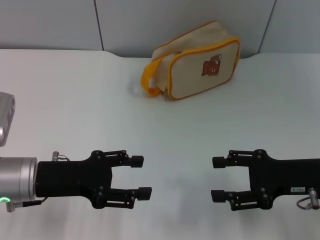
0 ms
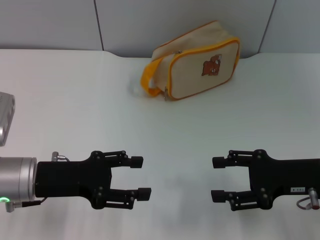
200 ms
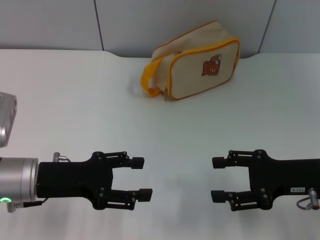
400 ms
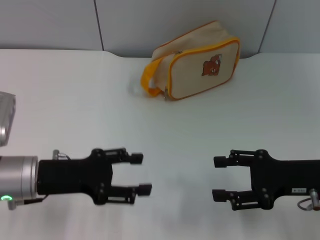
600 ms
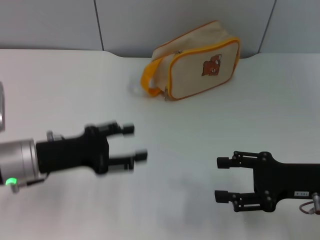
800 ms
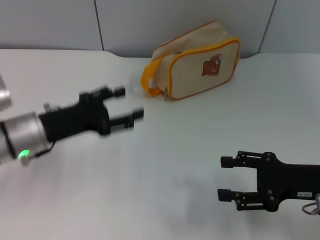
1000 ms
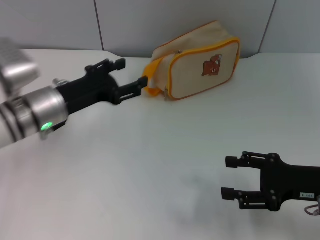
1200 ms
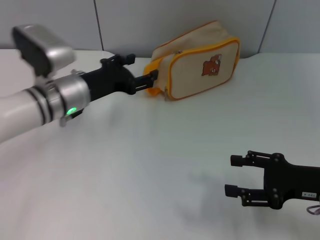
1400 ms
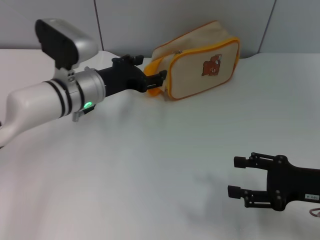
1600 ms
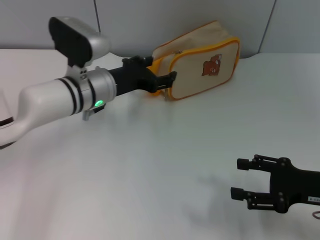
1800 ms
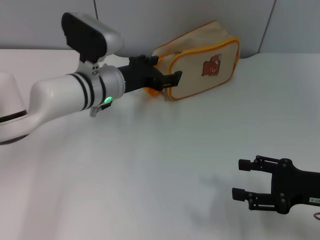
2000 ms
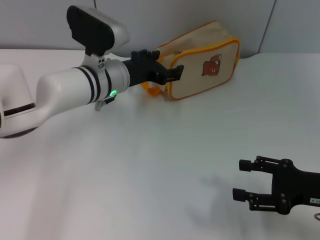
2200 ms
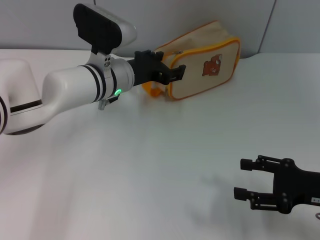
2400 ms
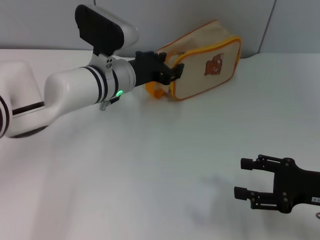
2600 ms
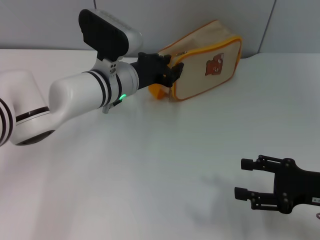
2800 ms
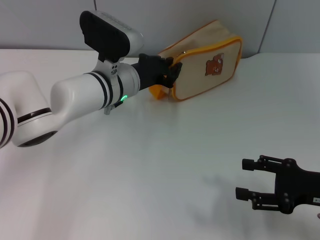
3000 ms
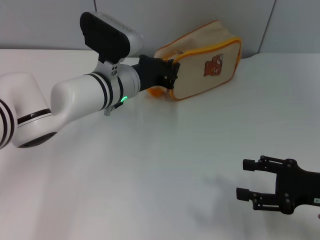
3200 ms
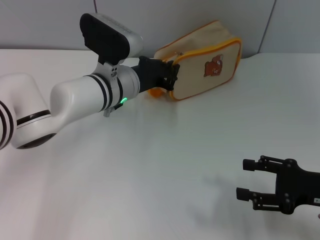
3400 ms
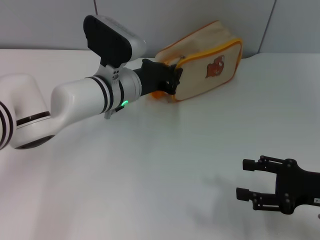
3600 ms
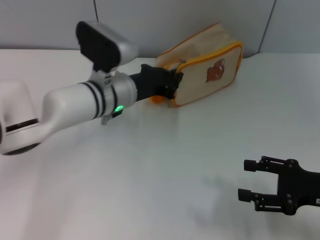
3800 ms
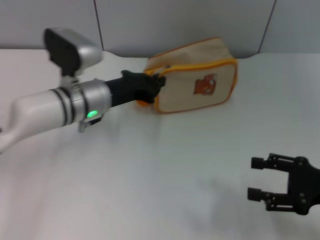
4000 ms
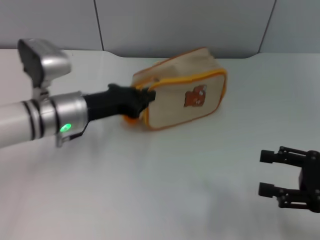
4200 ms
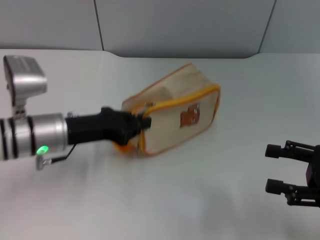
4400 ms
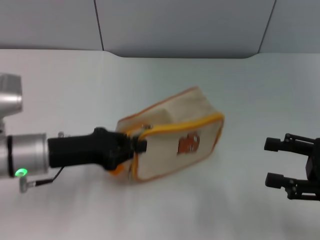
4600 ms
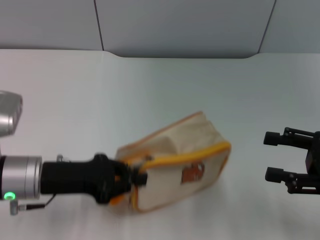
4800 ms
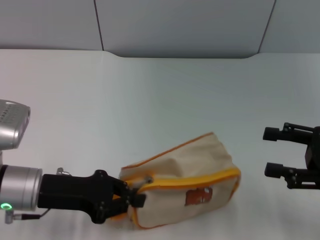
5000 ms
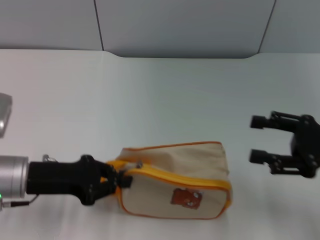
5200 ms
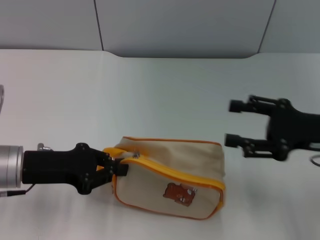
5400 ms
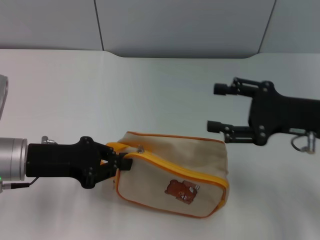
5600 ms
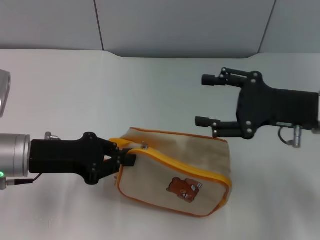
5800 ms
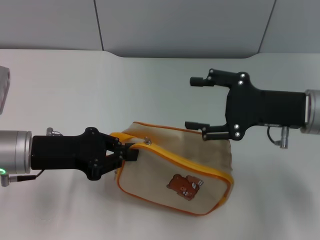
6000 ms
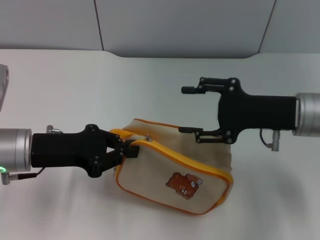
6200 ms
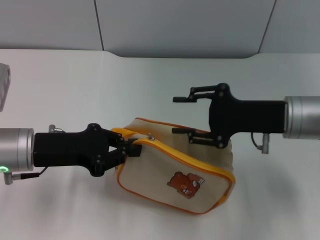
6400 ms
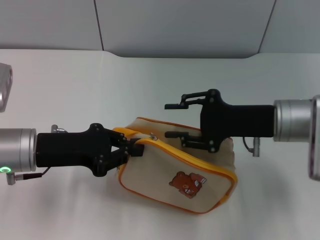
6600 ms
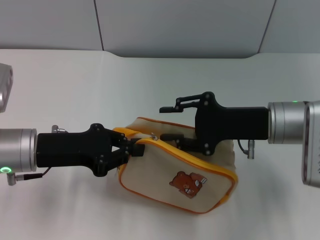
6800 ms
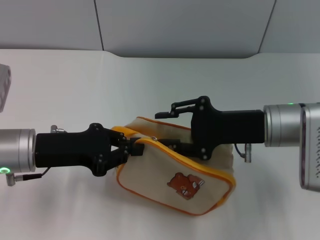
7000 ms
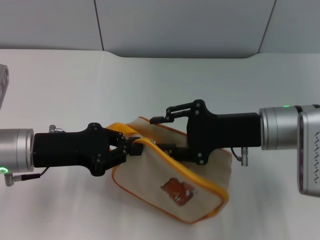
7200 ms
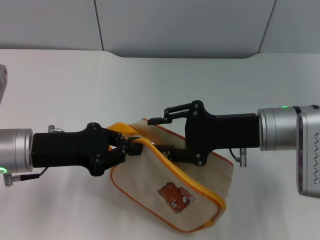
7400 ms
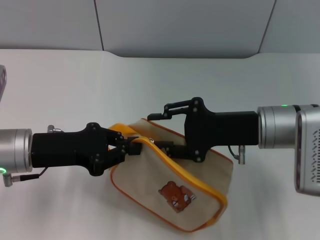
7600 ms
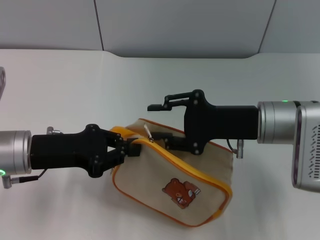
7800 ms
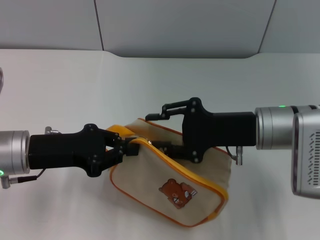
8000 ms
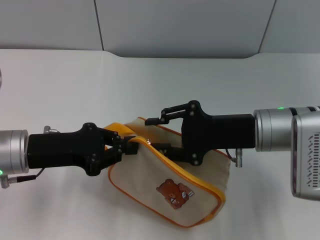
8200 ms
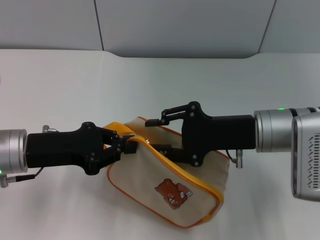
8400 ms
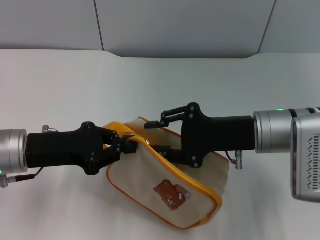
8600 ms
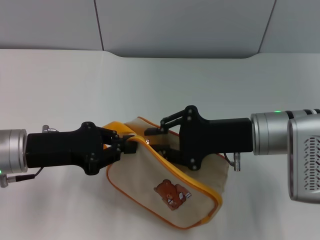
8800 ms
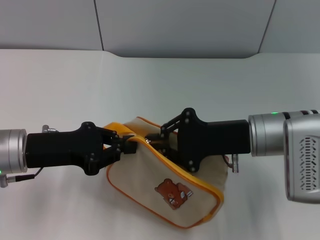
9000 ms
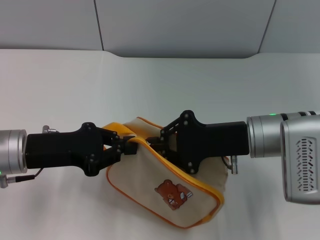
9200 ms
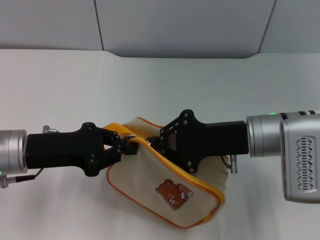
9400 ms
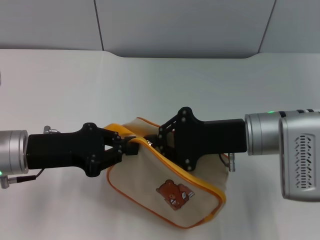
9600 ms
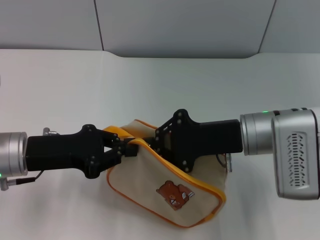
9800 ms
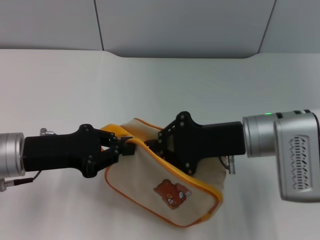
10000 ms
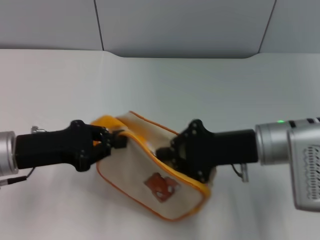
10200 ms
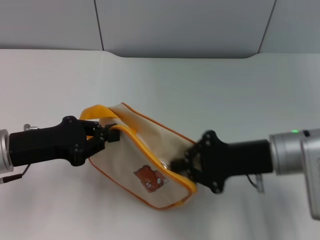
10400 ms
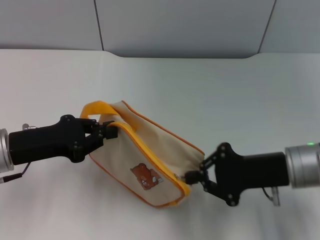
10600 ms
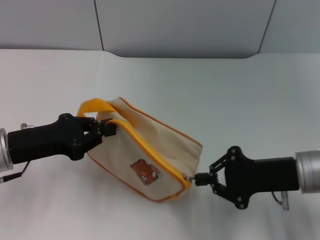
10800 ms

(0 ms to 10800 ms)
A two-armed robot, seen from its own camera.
Step, 0 ms - 6000 ms: Pick up the bag with left gripper.
0 ms - 1600 ms: The left gripper heads forward and to the right, covering some 15 cm.
1600 ms - 3000 ms: The left gripper goes about 5 cm to the right, and closes.
3000 ms - 4600 ms: The right gripper shifts by approximately 5 cm. Meanwhile the left gripper shifts approximately 20 cm to the left and backward.
4600 ms - 6200 ms: The right gripper heads to the left and forward, covering approximately 15 cm.
6200 ms - 9200 ms: The grippers move only a little.
9200 ms - 10800 ms: The right gripper heads to the right, covering some 5 cm.

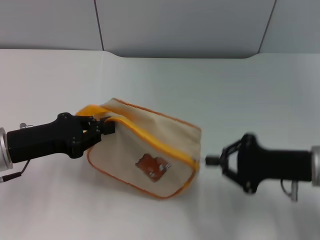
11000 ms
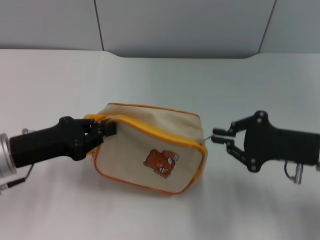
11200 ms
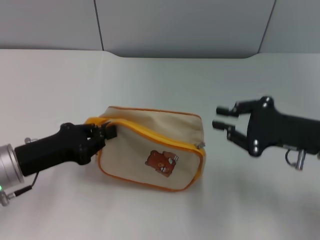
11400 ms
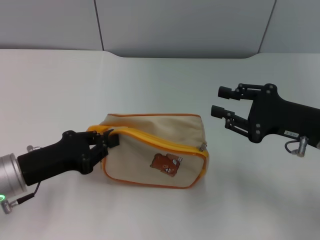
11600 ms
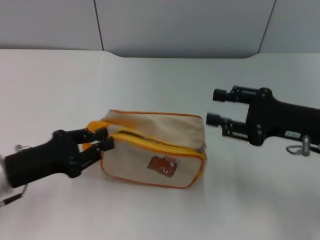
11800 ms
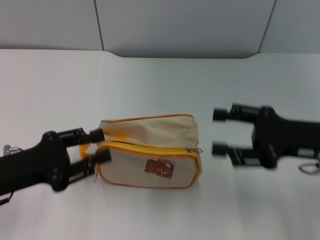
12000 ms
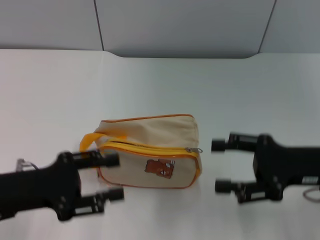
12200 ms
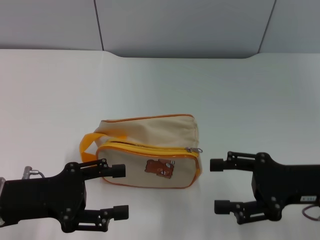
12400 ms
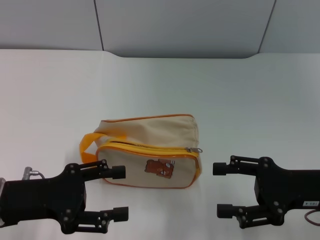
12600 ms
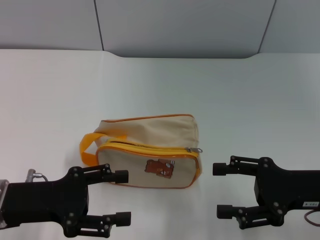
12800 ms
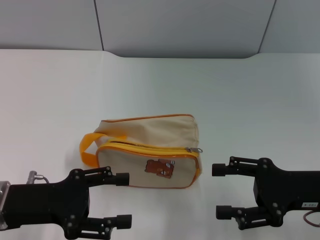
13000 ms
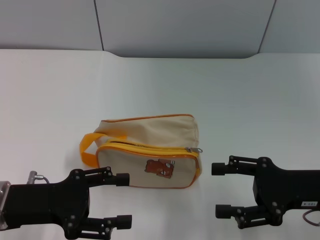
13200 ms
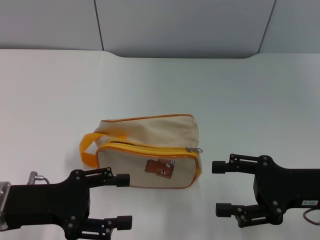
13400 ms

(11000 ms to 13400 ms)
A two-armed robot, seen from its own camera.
Step, 11400 ms - 12000 ms: Place the bag on the table with left gripper.
11000 ms - 12200 ms: The left gripper heads backward, covering some 5 cm, and opens up. Meanwhile the right gripper opens its fingers.
12200 ms - 13400 ms: The left gripper opens up.

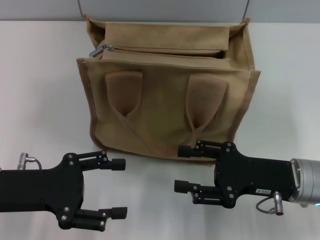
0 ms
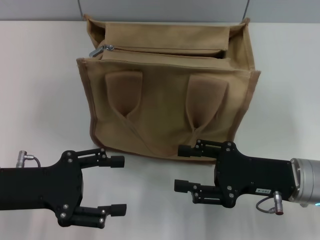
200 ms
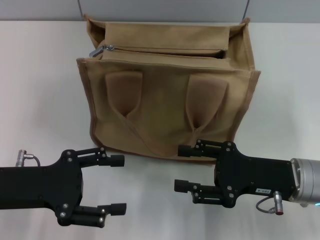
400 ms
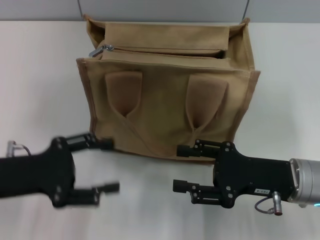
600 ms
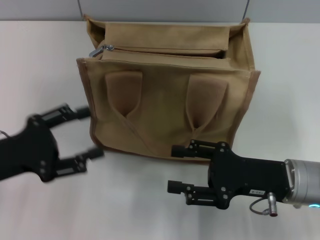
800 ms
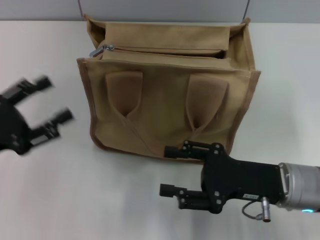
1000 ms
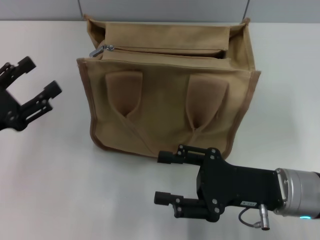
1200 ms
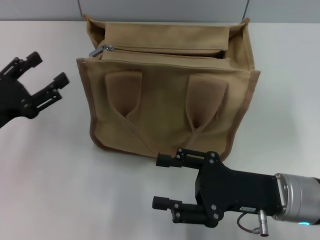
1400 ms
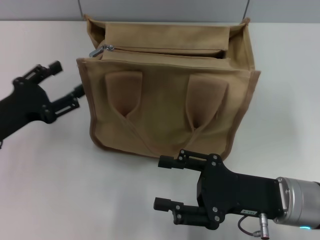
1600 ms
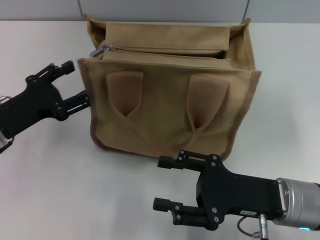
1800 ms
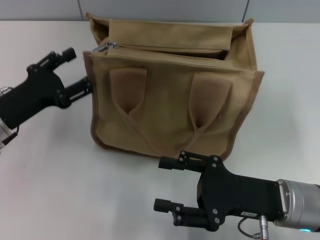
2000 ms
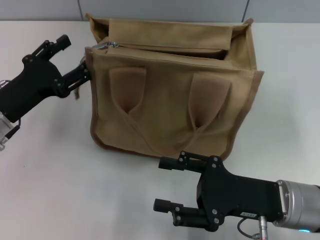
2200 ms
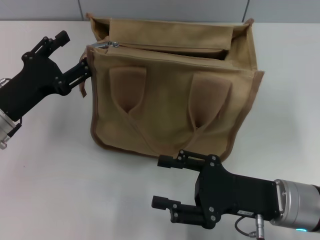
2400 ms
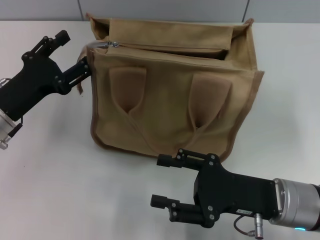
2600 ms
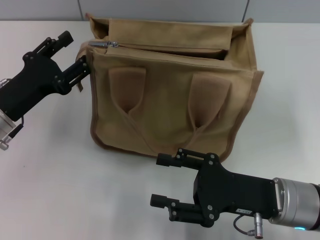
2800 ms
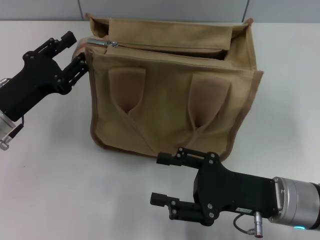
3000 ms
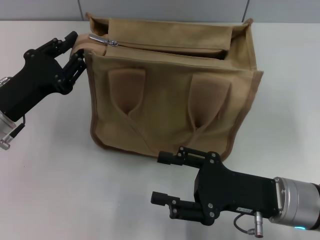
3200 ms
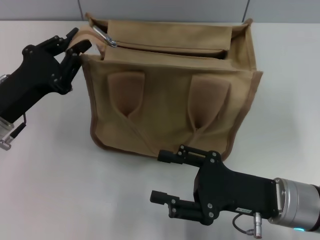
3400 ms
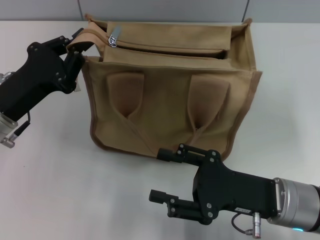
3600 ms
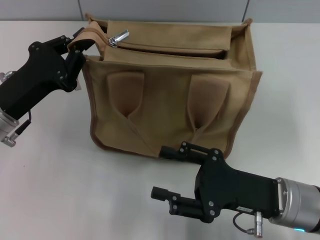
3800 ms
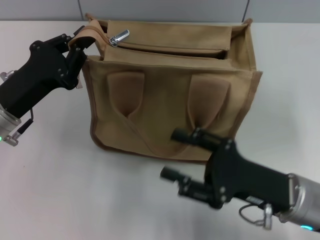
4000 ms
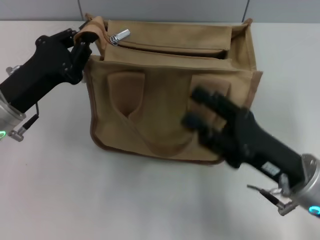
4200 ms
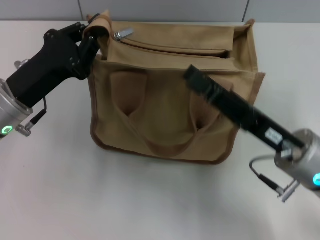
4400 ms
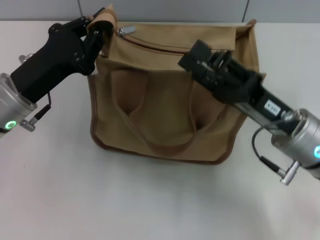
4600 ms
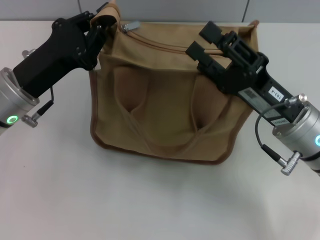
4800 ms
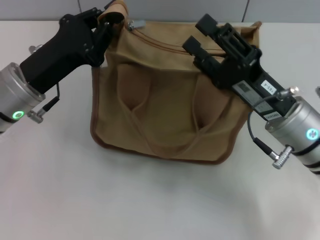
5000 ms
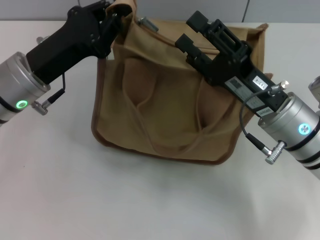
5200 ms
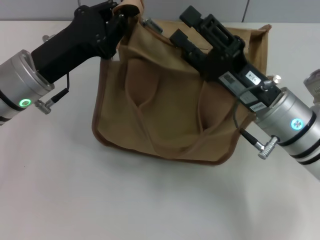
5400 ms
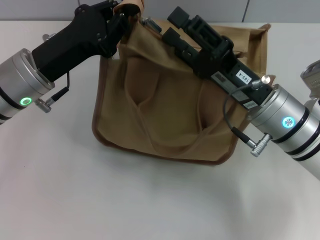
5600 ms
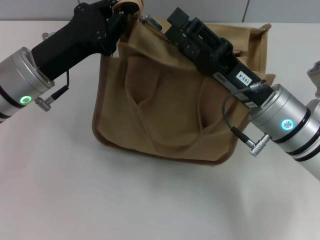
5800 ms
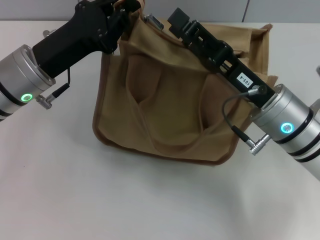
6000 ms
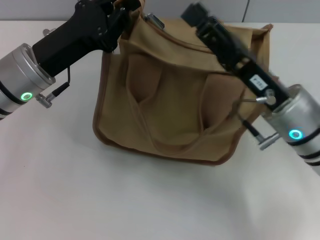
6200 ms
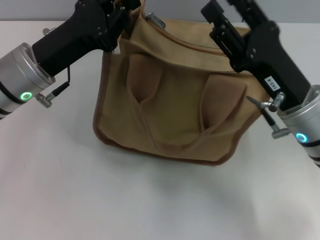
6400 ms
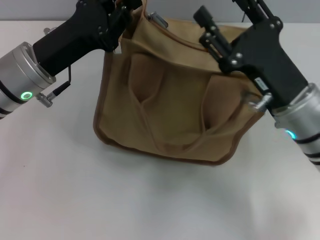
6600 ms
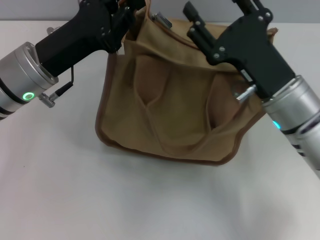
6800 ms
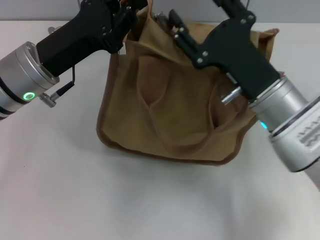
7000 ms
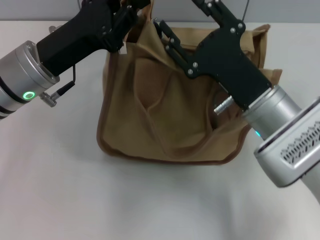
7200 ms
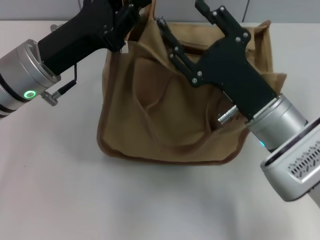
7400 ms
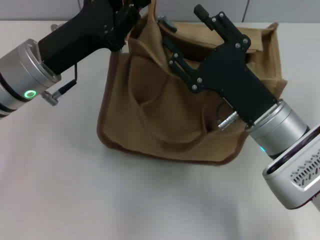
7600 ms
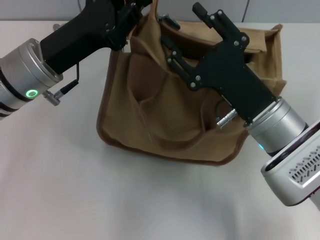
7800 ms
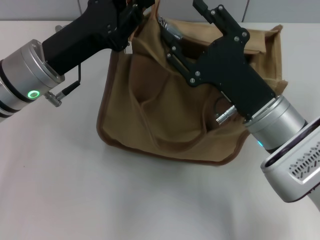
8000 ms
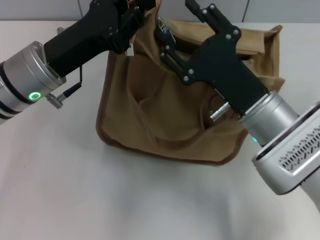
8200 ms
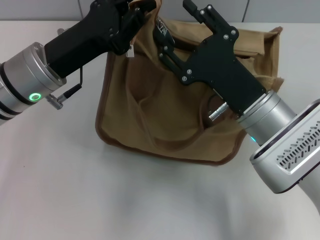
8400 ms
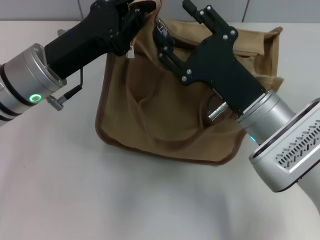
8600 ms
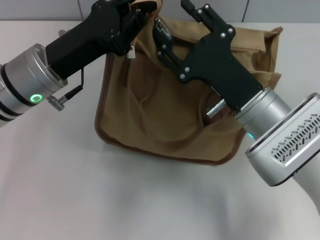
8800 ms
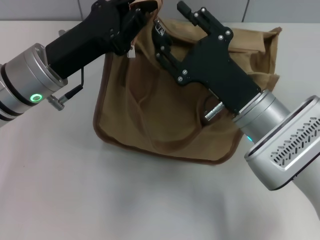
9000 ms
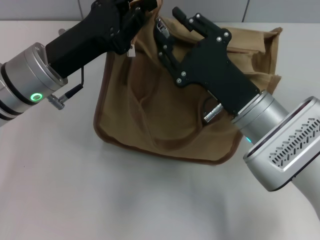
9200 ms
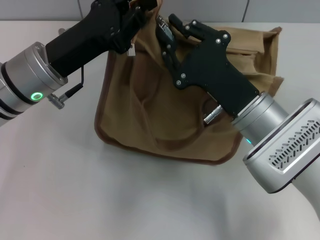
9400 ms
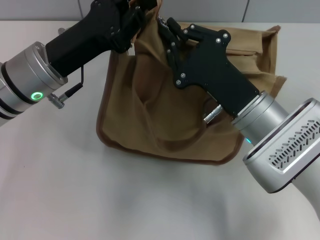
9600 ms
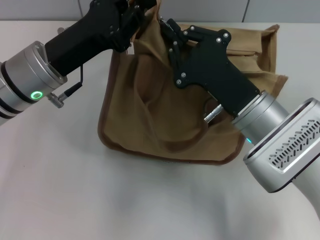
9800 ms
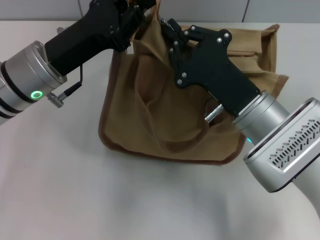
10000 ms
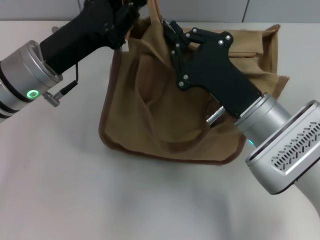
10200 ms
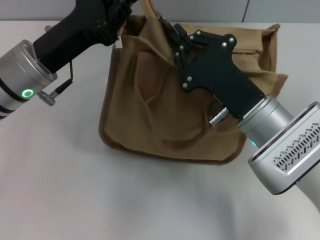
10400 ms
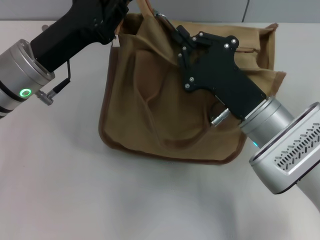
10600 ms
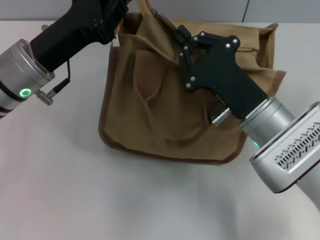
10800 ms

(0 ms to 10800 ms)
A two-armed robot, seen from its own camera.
0 ms - 1600 ms: The left gripper ends up about 5 cm from where it was.
1600 ms - 3000 ms: The grippers stay close to where they were, moving slightly.
3000 ms - 4600 ms: The left gripper closes its fingers. Meanwhile the right gripper shifts by approximately 5 cm.
7800 ms - 9200 ms: The grippers move only a little.
9200 ms - 10800 ms: The right gripper closes its fingers.
